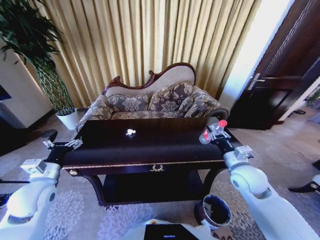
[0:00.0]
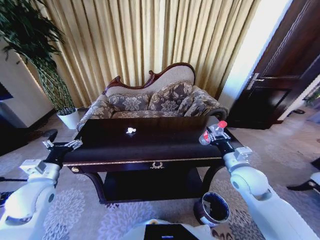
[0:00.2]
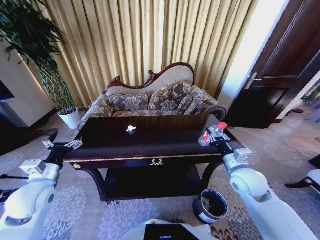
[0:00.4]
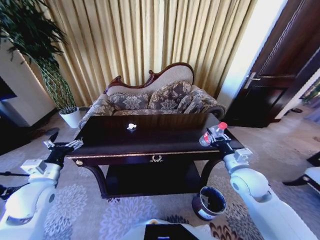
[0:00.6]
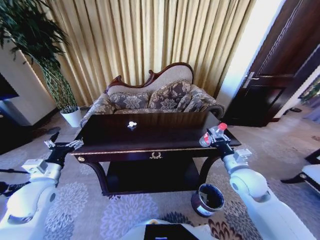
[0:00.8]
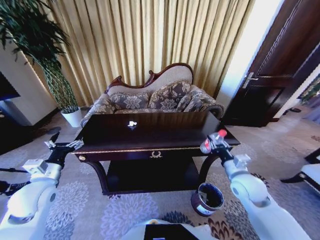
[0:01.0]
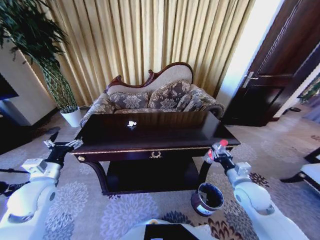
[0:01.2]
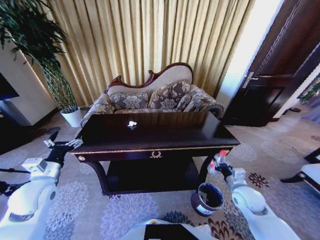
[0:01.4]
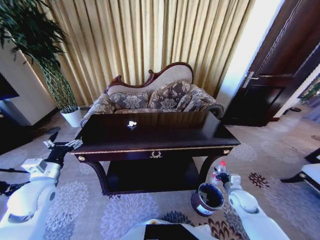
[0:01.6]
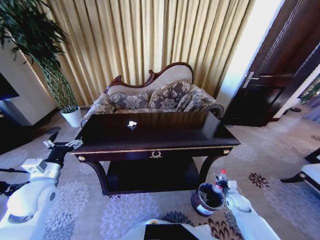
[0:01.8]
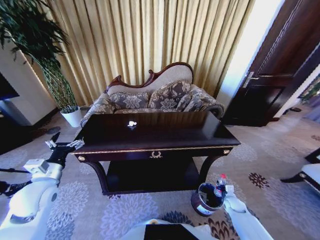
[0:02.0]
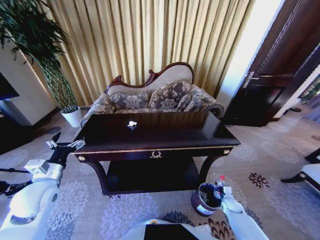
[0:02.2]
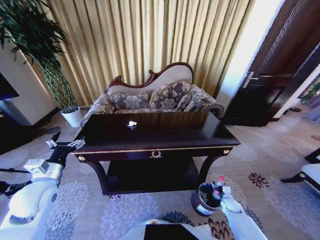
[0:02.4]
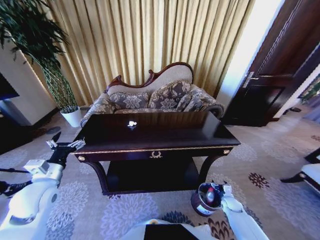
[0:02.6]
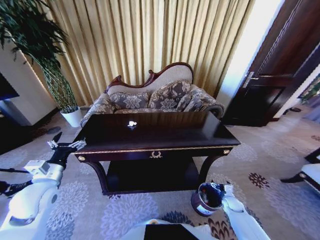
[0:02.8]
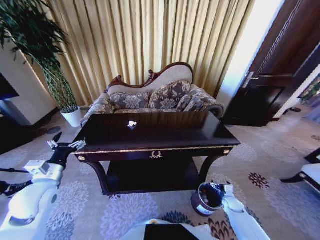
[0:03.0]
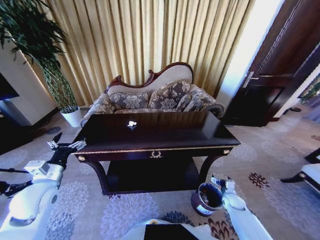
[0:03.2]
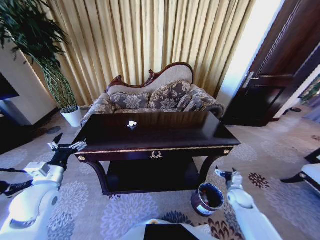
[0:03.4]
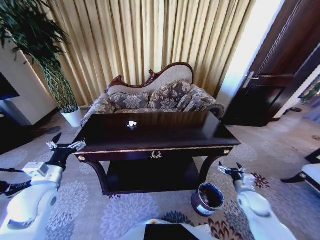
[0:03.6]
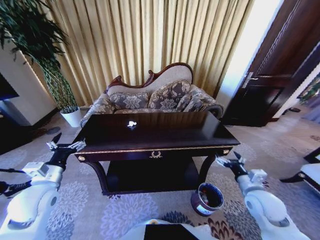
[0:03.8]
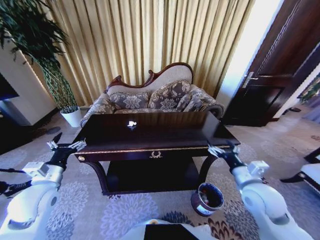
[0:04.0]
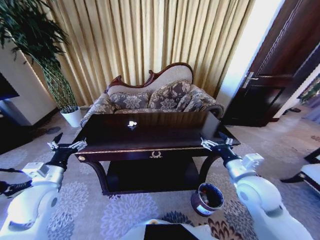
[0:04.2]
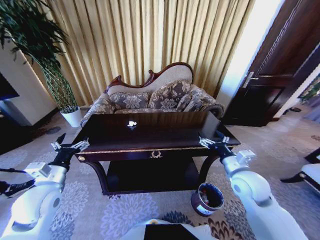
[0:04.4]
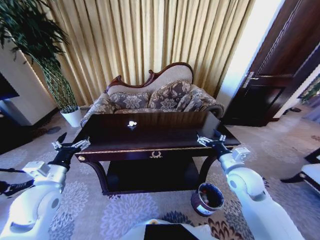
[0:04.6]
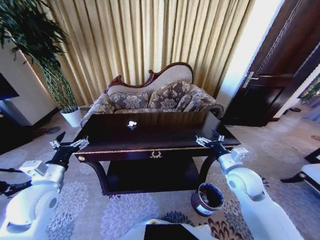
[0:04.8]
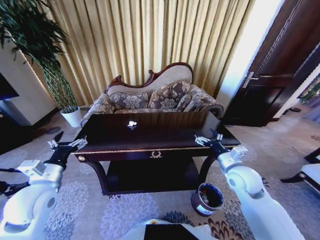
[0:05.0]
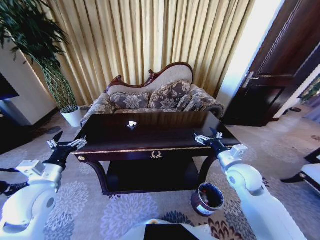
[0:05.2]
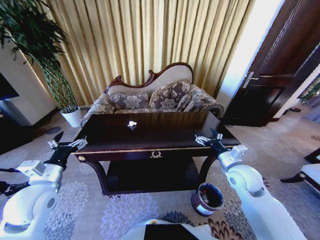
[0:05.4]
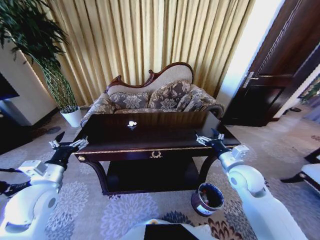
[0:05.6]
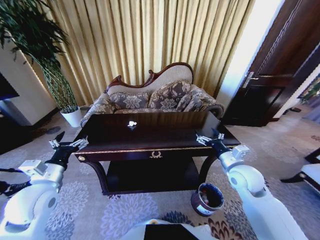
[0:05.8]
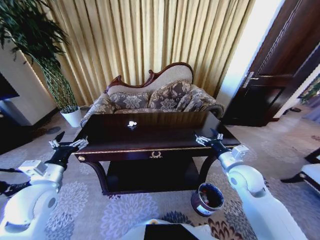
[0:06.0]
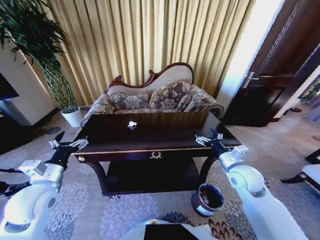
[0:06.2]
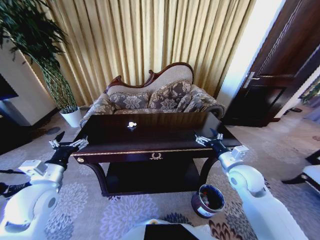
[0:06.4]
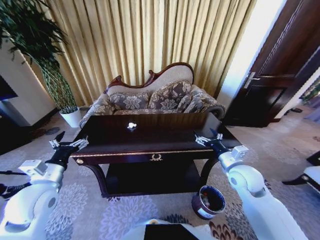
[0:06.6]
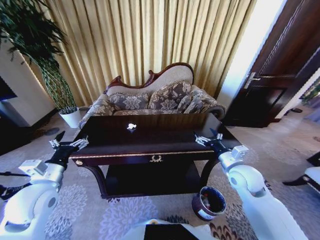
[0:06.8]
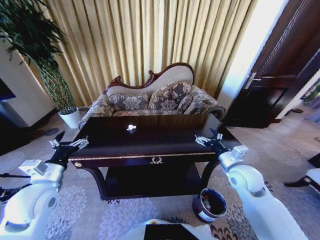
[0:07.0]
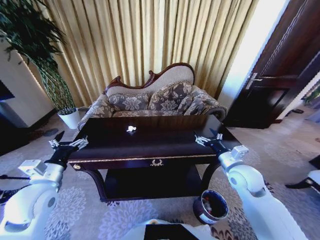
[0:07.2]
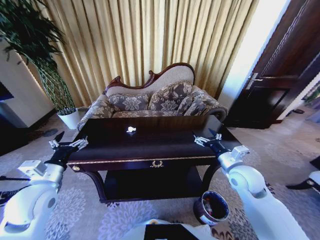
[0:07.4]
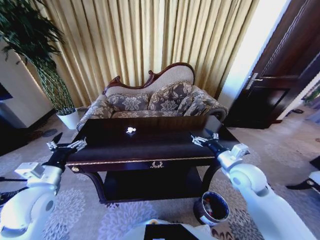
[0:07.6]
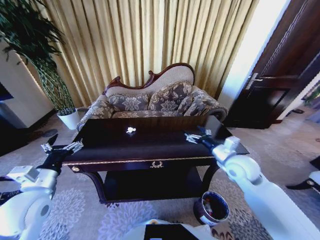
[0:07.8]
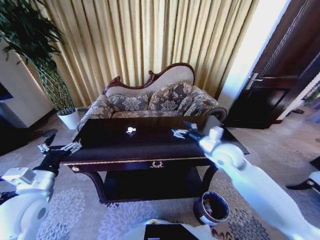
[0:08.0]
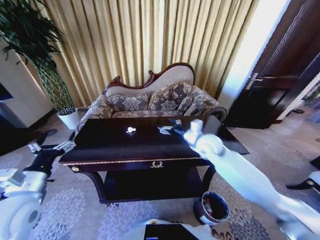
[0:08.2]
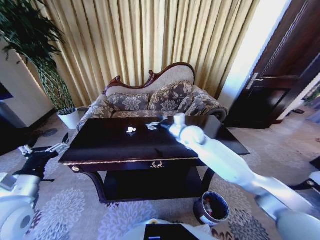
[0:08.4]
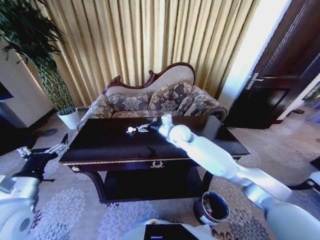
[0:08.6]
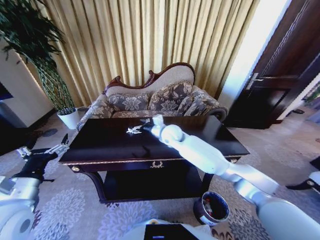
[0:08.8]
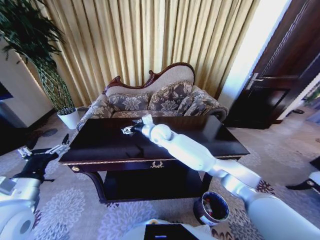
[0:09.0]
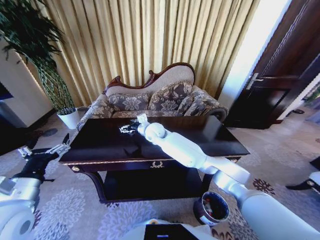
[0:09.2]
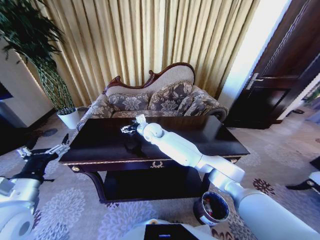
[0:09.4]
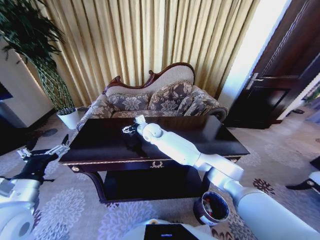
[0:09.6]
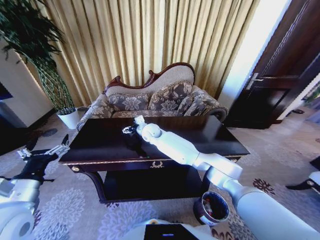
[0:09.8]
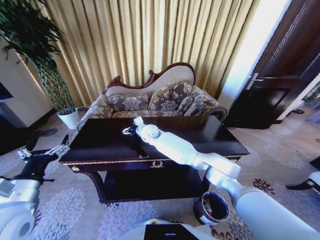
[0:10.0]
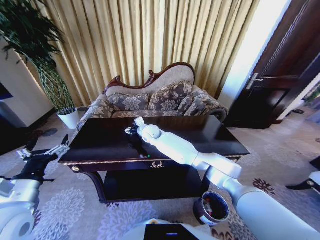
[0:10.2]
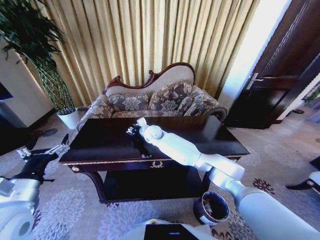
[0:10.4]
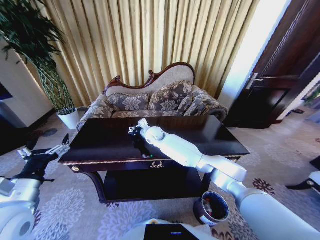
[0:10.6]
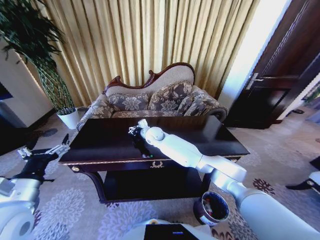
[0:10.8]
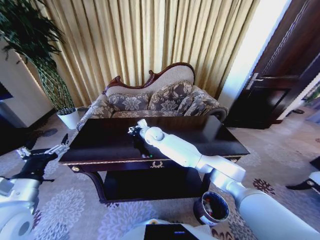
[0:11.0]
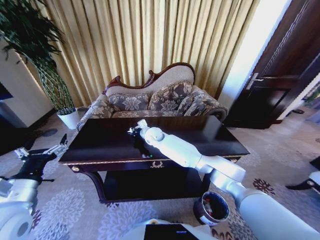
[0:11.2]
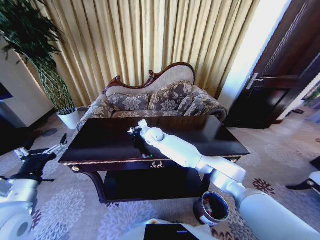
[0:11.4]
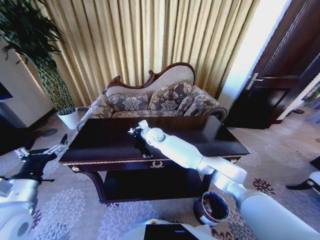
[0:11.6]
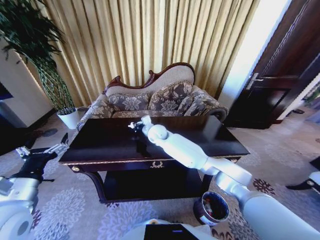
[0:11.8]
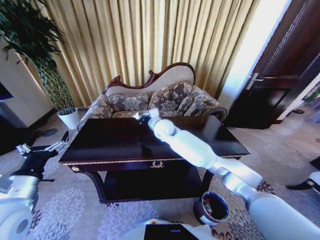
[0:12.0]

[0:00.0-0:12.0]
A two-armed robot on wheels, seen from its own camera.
Task of the whole recording: Move to the front of the table and place the trash on the table into the trash bin.
0:00.0 to 0:01.6: The right gripper is displaced downward and to the right by approximately 20 cm.
0:01.6 to 0:03.0: The right gripper goes about 15 cm downward, and opens.
0:03.0 to 0:04.4: The right gripper goes some 35 cm upward.
0:04.4 to 0:06.0: There are only small adjustments of the grippers.
0:07.6 to 0:09.0: The right gripper goes approximately 35 cm to the left and forward. The left gripper travels backward by approximately 5 cm.
0:09.0 to 0:10.4: The right gripper shifts by approximately 10 cm, and closes up.
0:10.4 to 0:12.0: The right gripper shifts roughly 10 cm upward and to the right, and closes its fingers.

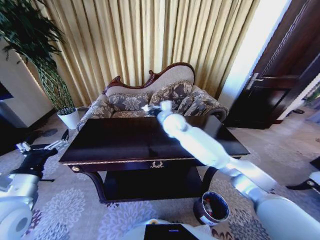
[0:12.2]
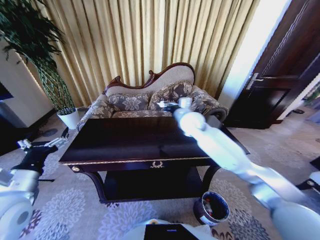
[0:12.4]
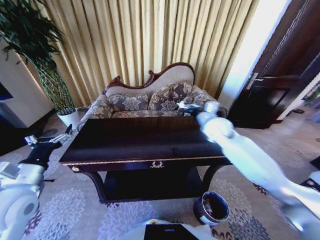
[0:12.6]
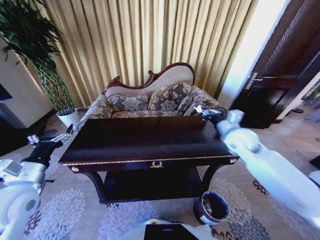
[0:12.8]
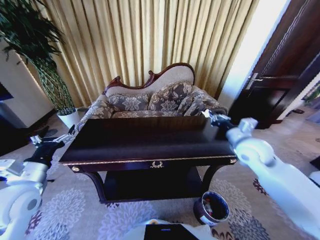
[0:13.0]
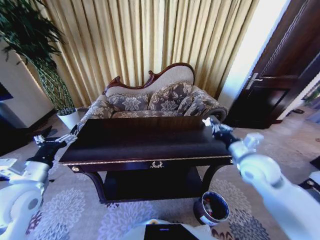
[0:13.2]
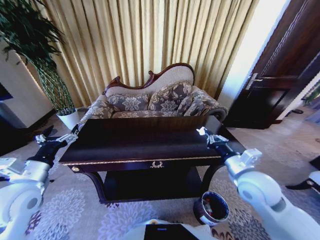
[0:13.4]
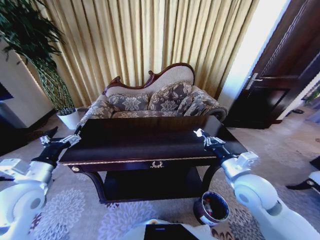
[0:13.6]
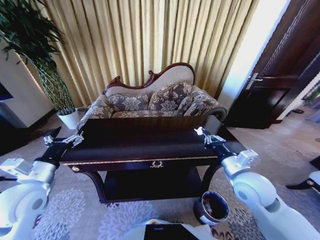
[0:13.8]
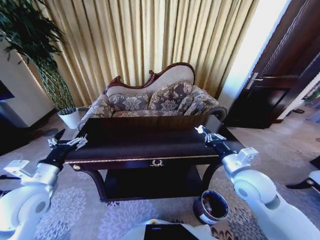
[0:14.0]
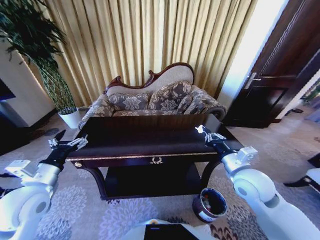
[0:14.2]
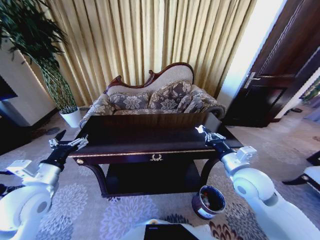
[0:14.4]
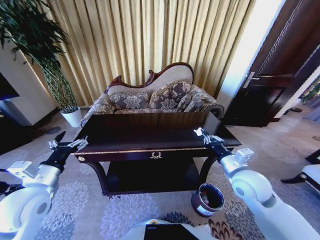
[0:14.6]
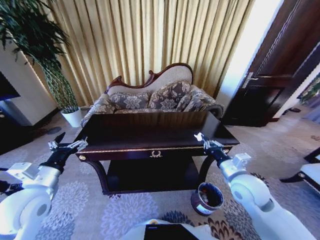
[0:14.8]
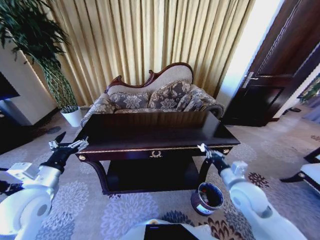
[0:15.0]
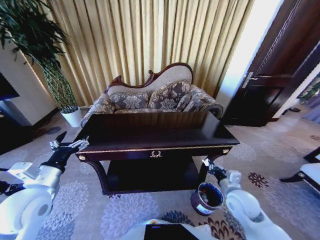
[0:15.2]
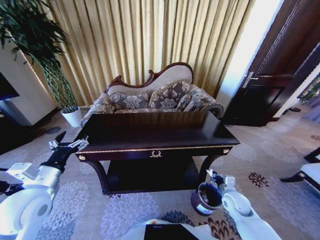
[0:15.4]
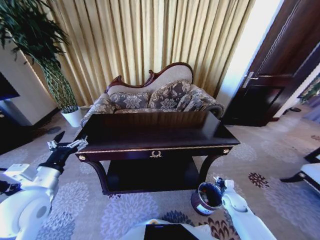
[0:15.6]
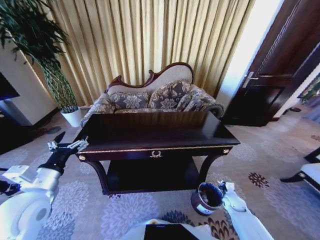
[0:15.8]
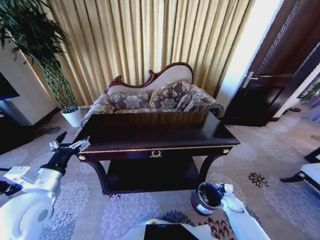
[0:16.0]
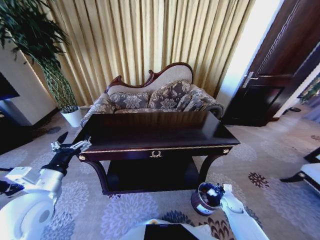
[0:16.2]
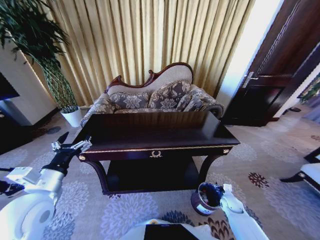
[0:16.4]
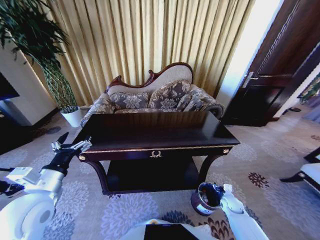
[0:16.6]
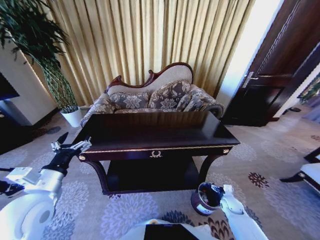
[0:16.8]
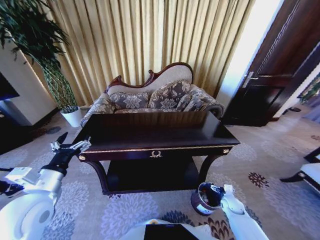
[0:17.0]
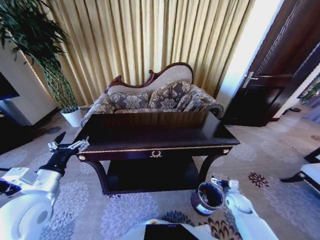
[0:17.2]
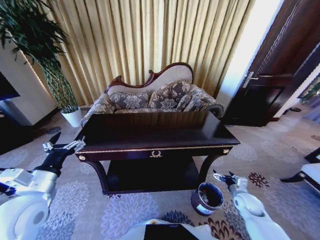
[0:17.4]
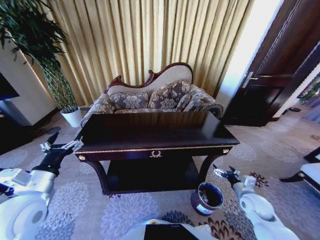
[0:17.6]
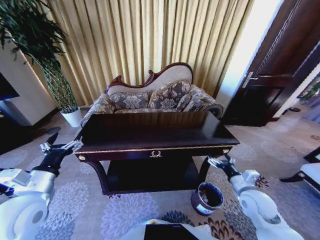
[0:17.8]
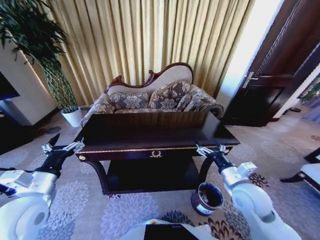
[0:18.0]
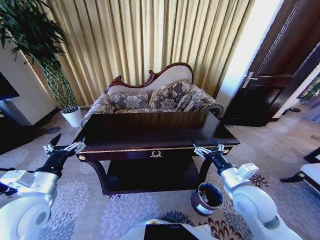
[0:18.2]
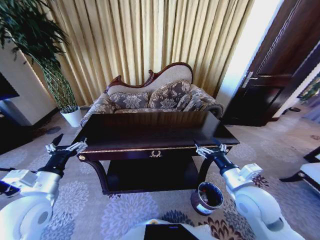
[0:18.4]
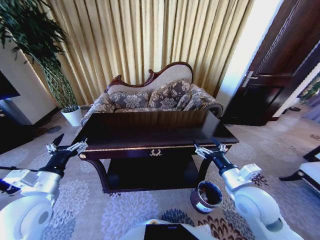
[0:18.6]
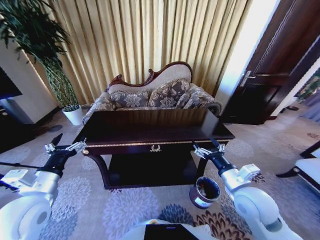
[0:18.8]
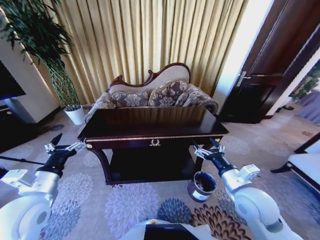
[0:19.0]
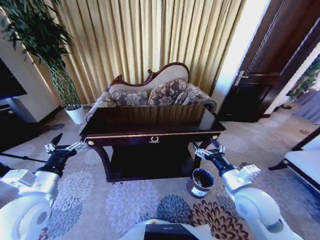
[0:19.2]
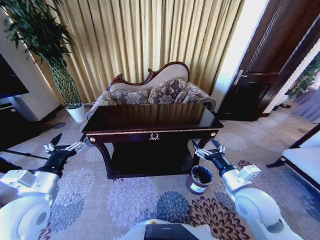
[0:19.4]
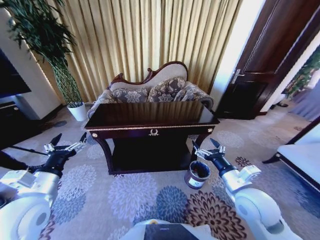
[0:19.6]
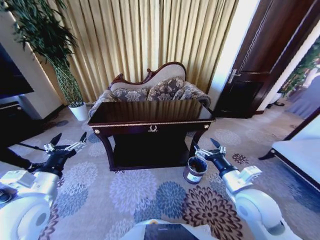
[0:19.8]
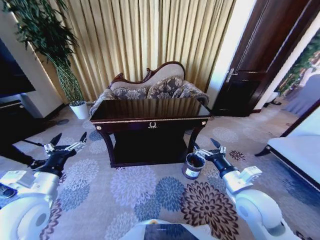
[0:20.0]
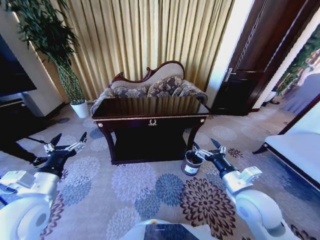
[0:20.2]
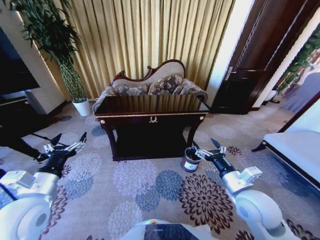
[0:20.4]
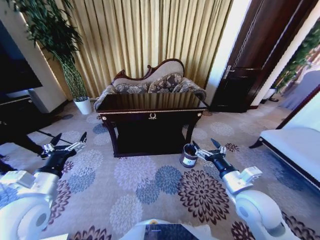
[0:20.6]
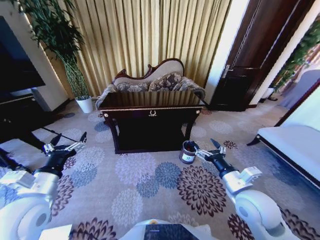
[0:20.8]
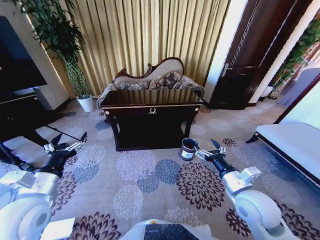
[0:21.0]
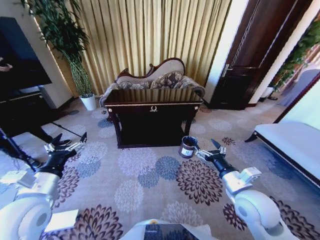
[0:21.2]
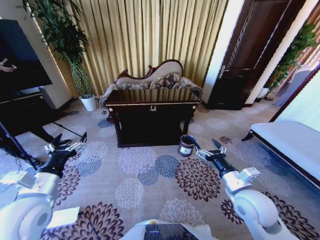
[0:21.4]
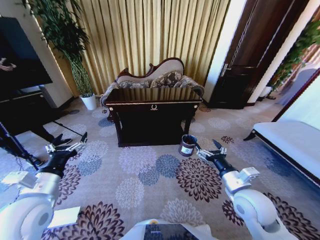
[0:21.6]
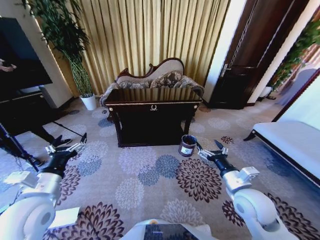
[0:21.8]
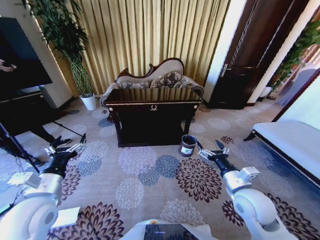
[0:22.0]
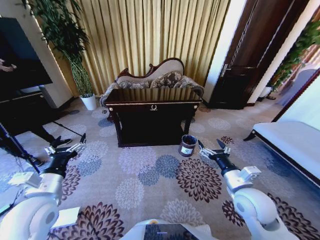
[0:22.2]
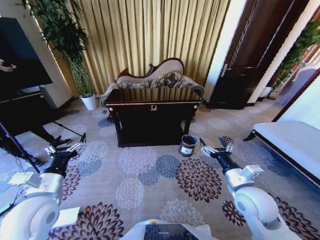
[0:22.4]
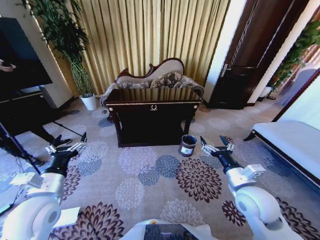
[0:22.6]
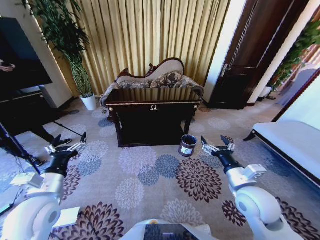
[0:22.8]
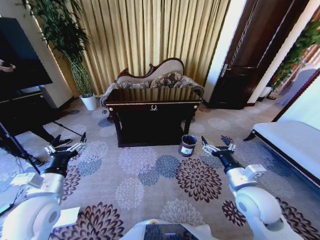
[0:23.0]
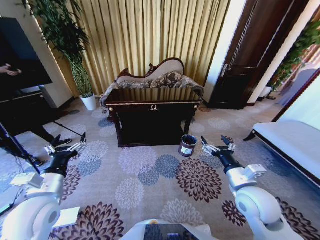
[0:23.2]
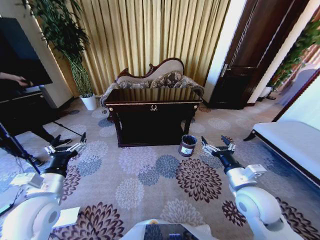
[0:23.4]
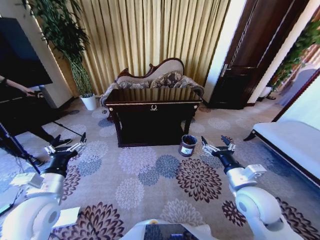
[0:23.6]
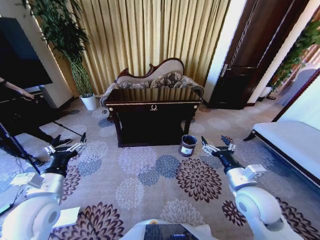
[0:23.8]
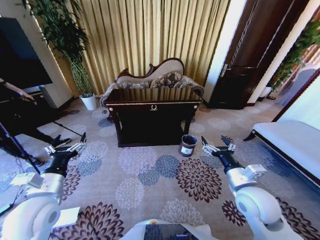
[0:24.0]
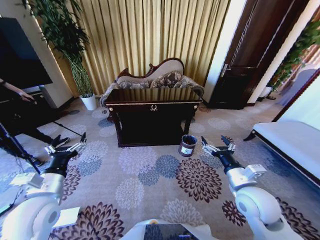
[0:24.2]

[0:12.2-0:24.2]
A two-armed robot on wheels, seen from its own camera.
Task of the whole recording: Move to the front of the table and place the trash on the table into the trash bin.
0:12.2 to 0:13.8: The right gripper is displaced backward and to the right by approximately 30 cm.
0:13.8 to 0:15.2: The right gripper travels downward by approximately 15 cm.
0:15.2 to 0:16.6: The right gripper shifts approximately 20 cm downward and to the right, and opens its fingers.
0:16.6 to 0:18.2: The right gripper is displaced upward and to the left by some 35 cm.
0:22.6 to 0:24.2: Both grippers stay put.
